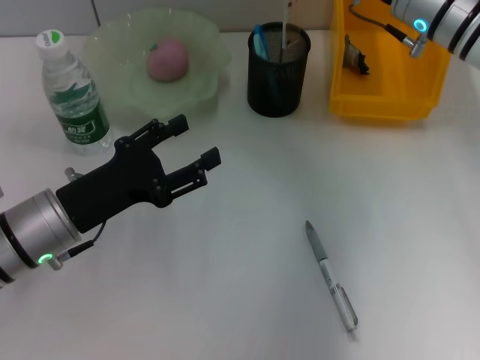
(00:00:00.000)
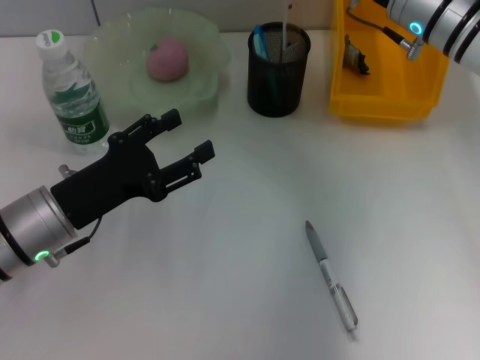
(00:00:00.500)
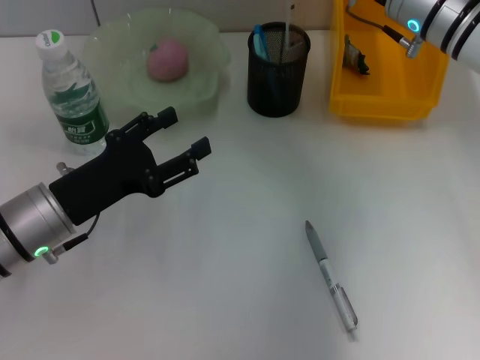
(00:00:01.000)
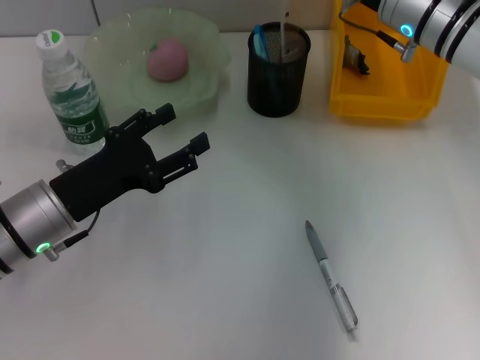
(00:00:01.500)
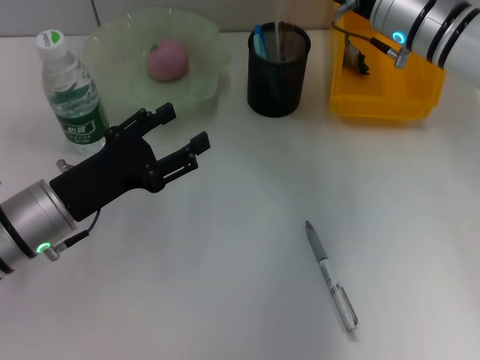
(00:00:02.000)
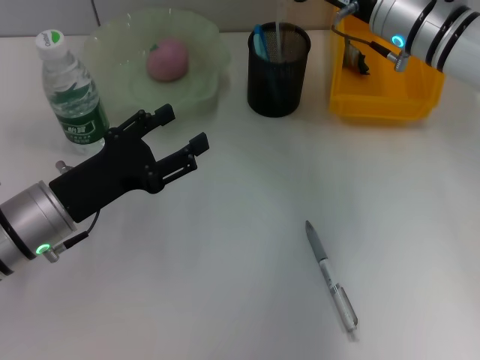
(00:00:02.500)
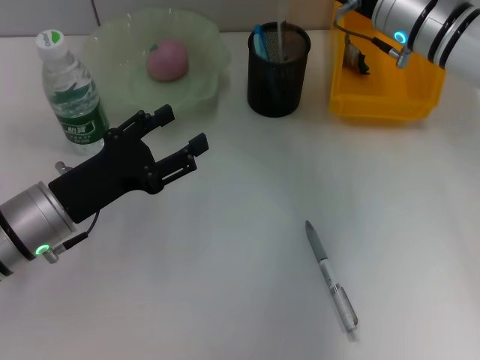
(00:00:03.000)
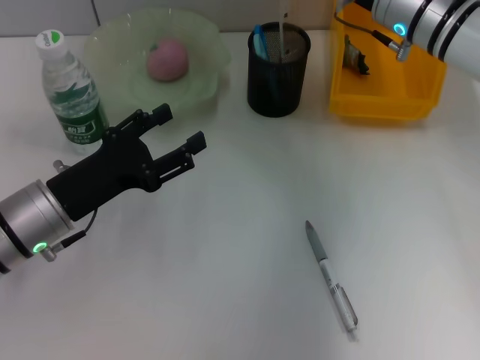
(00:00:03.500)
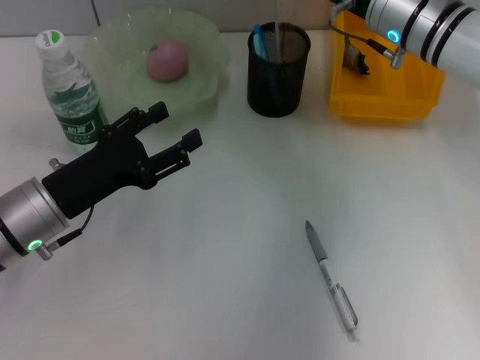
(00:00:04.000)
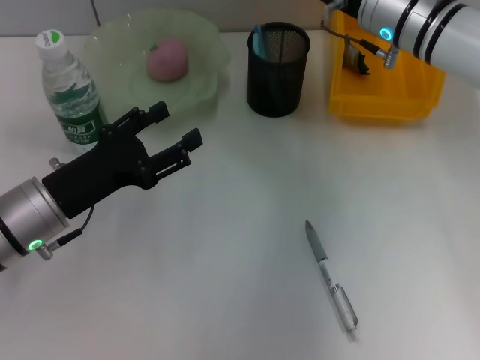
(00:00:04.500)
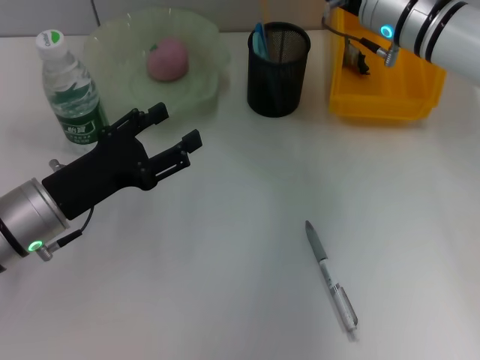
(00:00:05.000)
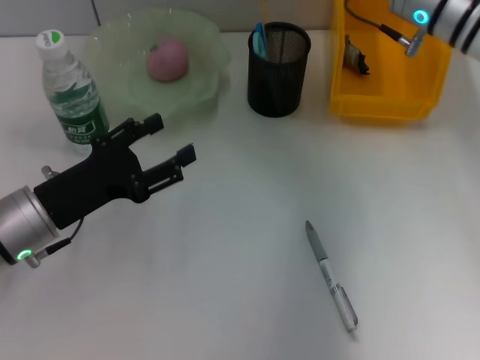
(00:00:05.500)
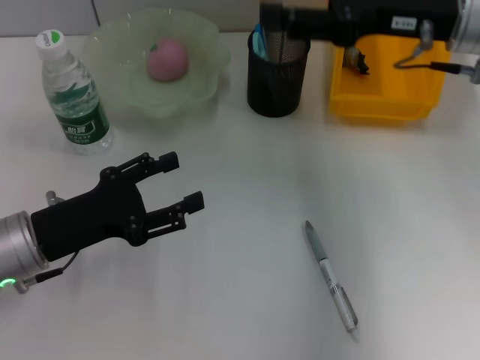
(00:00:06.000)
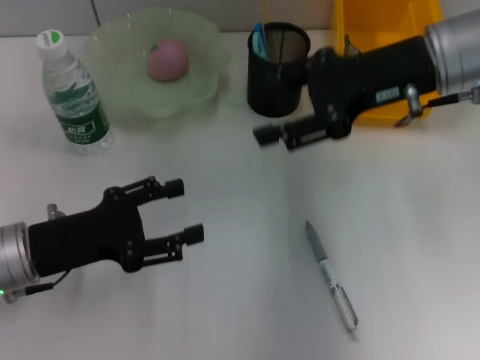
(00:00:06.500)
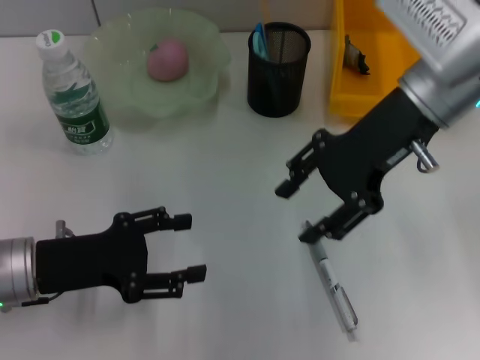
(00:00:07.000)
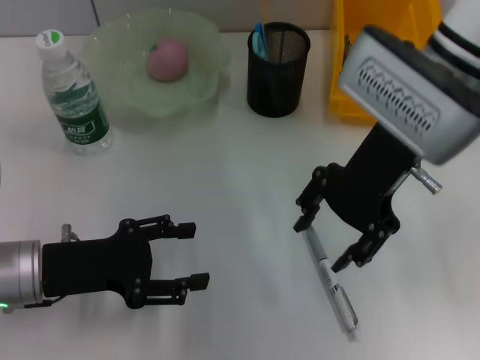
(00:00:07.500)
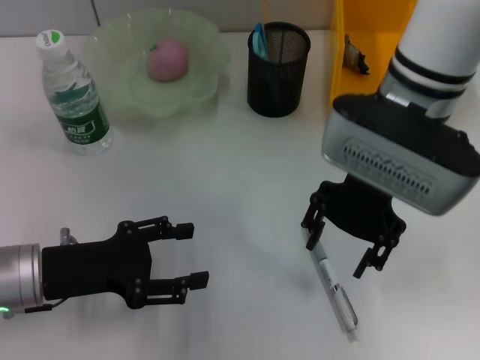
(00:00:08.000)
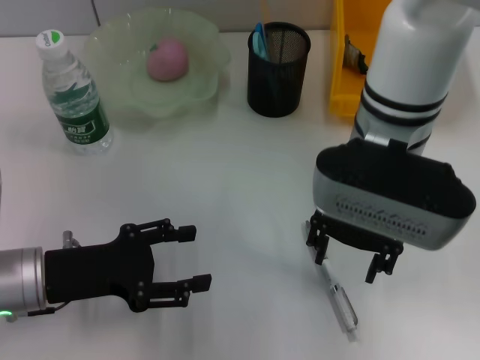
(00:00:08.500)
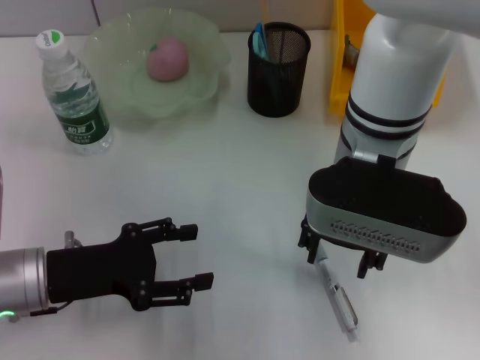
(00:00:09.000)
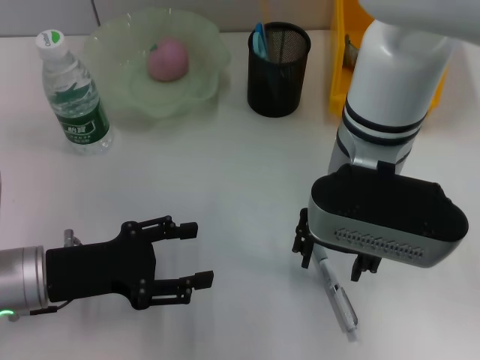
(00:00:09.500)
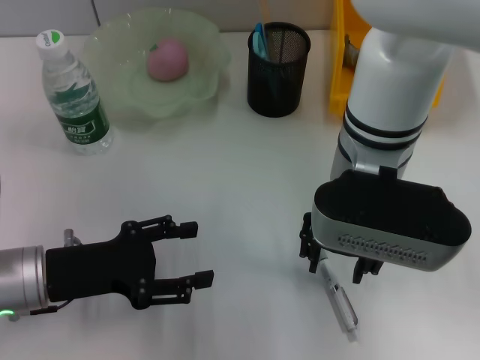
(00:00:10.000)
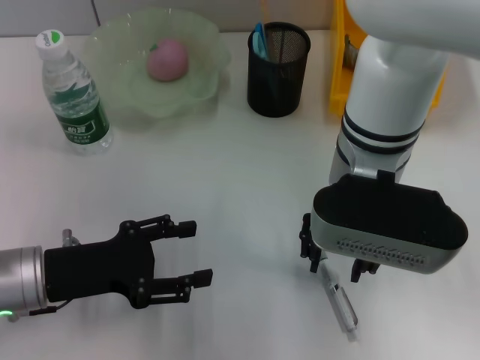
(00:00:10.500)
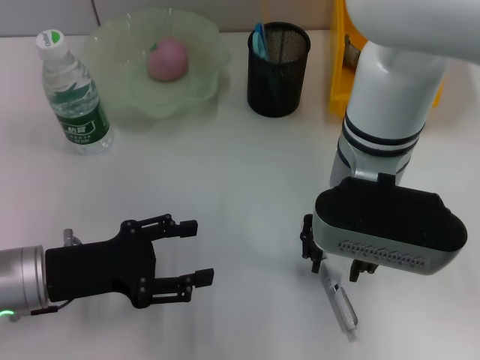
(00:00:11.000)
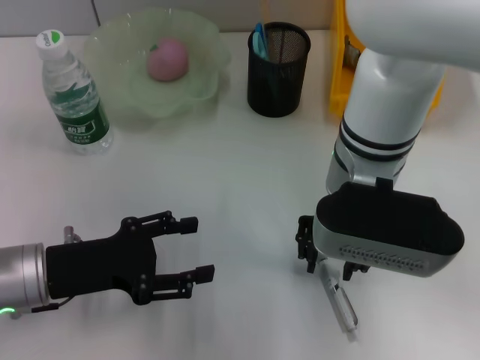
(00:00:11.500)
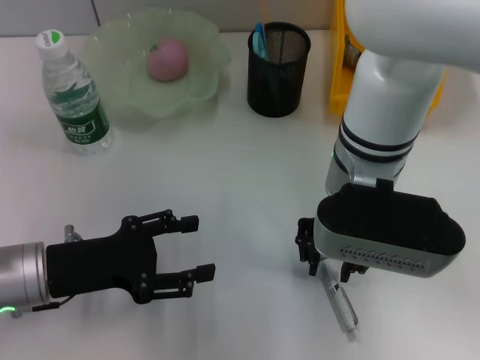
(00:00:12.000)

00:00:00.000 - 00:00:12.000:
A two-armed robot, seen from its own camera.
Step, 00:00:00.000 - 00:00:05.000: Place the ruler into the pen holder with the right hand.
00:00:00.000 - 00:00:02.000: The grippers move only a little.
00:00:02.000 - 00:00:04.000: Both grippers stay about where they are.
00:00:04.000 - 00:00:06.000: The right gripper goes roughly 10 cm upward and backward.
00:00:06.000 - 00:00:08.000: The right gripper is displaced to the left by approximately 10 cm.
00:00:10.000 - 00:00:12.000: The grippers stay close to where they were, moving slightly.

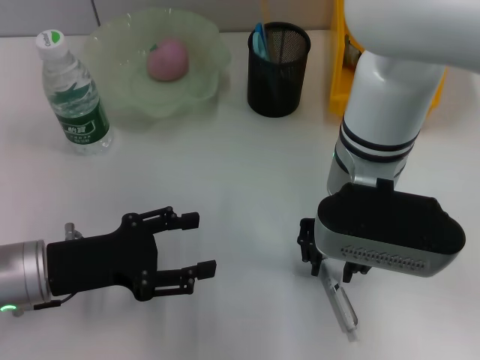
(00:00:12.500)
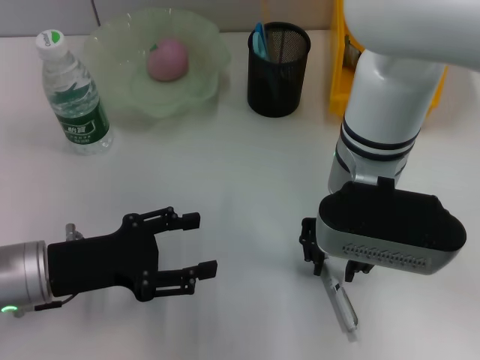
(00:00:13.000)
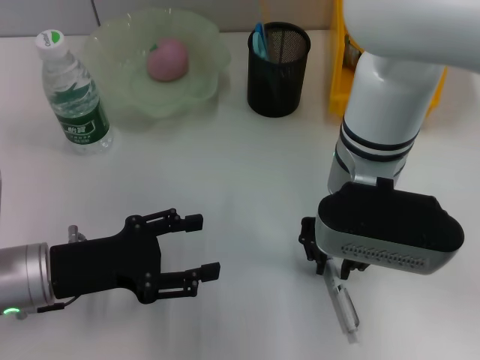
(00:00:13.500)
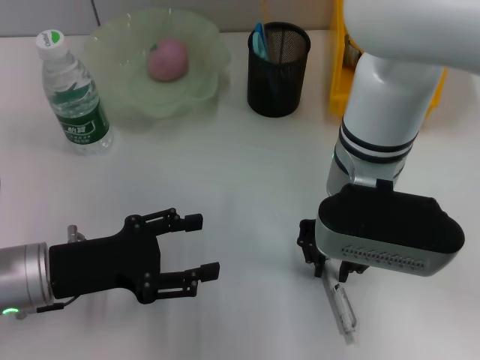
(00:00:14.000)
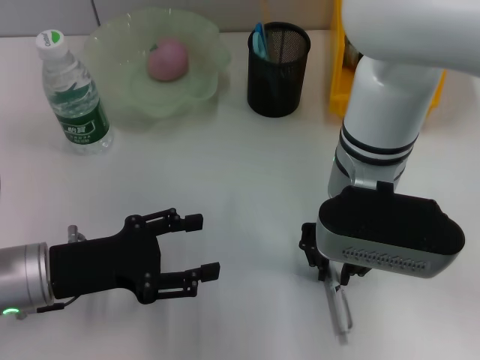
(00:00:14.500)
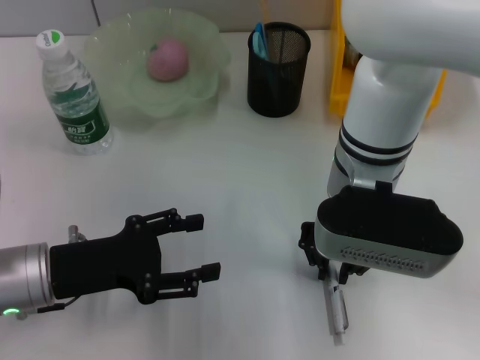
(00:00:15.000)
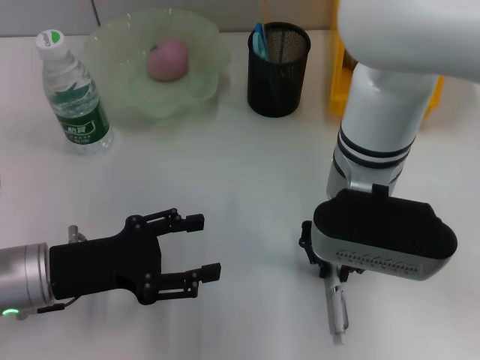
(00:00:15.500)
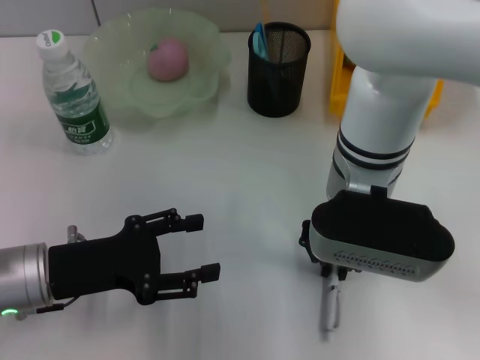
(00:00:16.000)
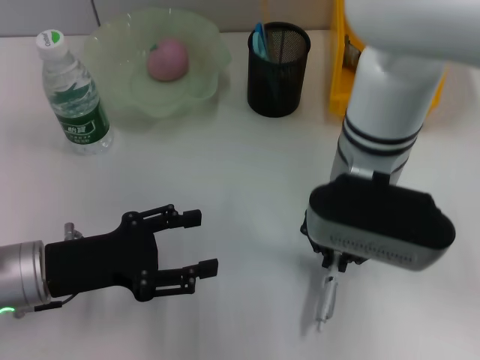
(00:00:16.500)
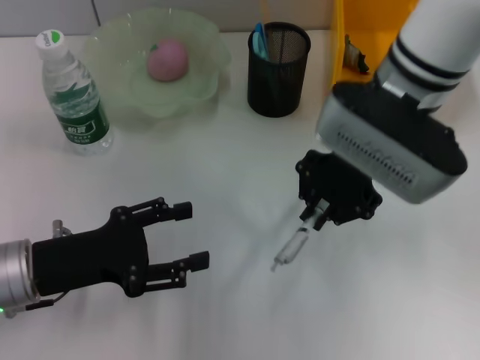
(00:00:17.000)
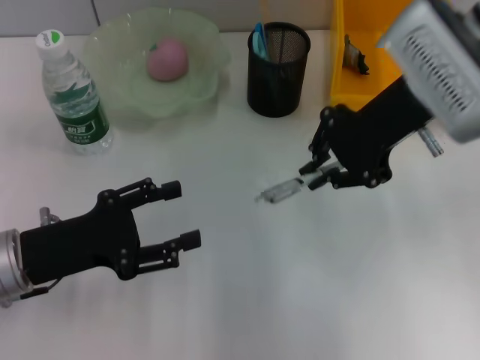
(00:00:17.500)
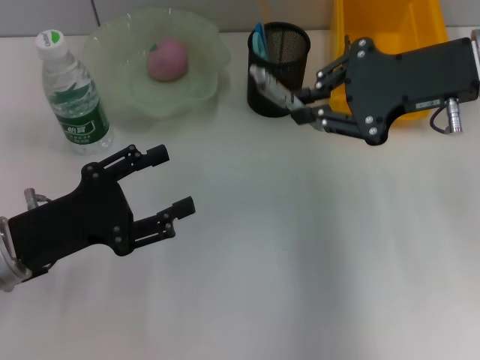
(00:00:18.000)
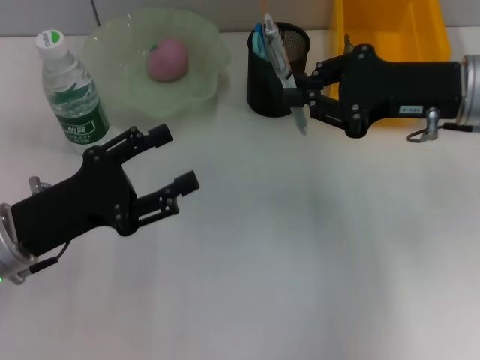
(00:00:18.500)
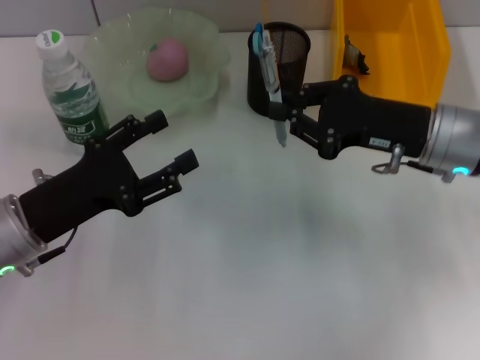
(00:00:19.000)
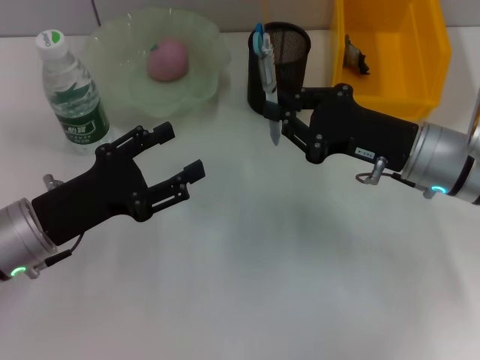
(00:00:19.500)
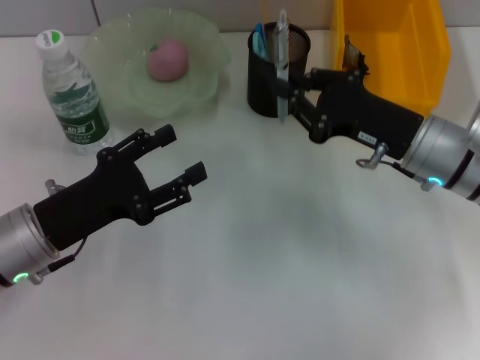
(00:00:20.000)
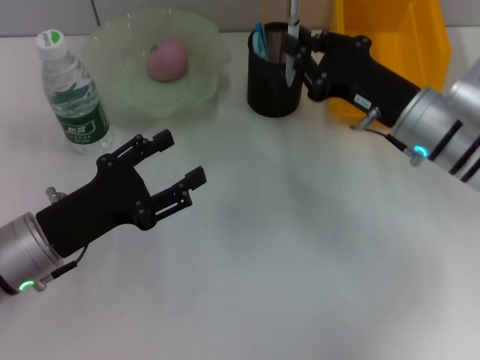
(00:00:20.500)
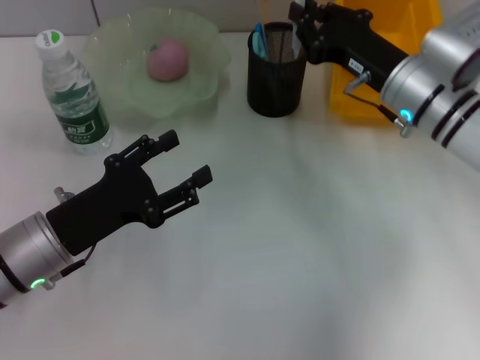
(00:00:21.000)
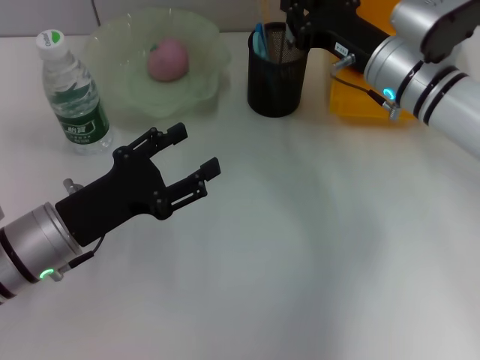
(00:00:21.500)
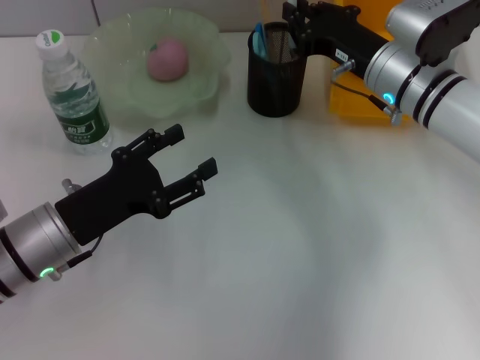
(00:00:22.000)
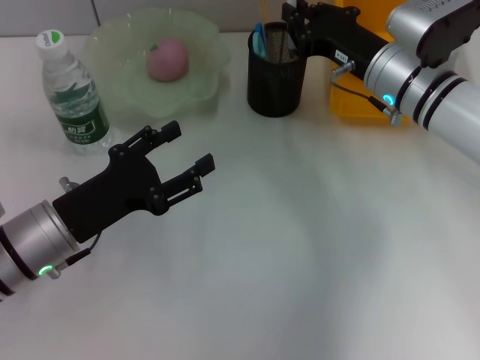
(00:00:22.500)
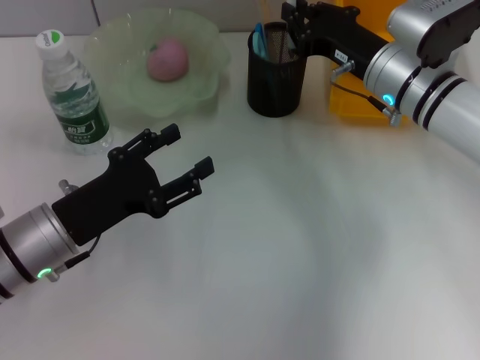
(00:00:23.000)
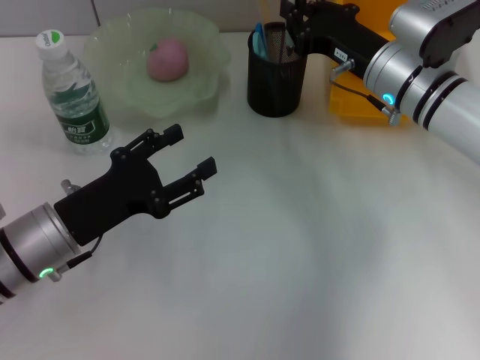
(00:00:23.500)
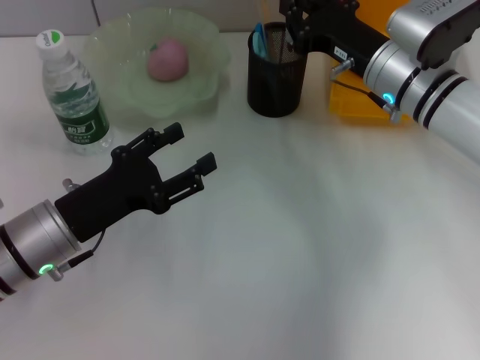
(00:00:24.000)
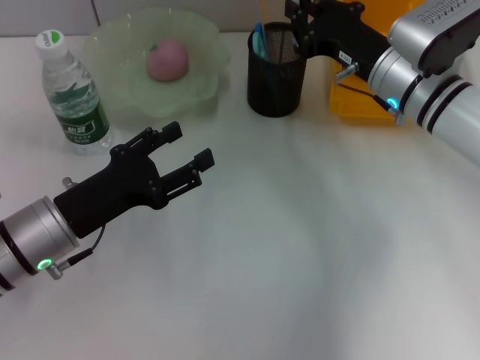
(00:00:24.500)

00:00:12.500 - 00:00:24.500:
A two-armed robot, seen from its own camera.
Step, 00:00:12.500 - 00:00:16.000: Grab the gray spring-action pen with the right hand.
00:00:12.500 - 00:00:14.500: Both grippers stay put.
00:00:14.500 - 00:00:16.500: The grippers make only small movements.
00:00:16.500 - 00:00:18.500: The right gripper goes some 15 cm to the right.
00:00:18.500 - 00:00:20.500: The right gripper shifts some 10 cm downward.
00:00:20.500 - 00:00:22.500: The right gripper is displaced forward by about 5 cm.
00:00:22.500 - 00:00:24.500: The grippers make only small movements.

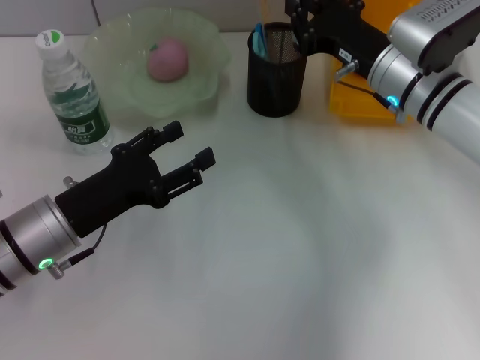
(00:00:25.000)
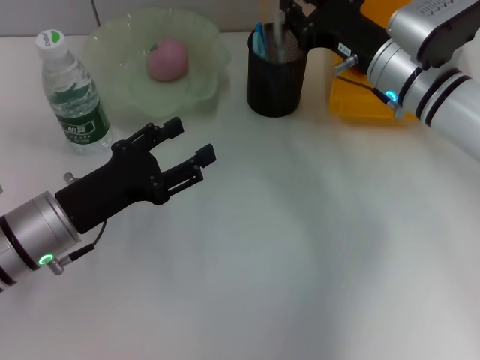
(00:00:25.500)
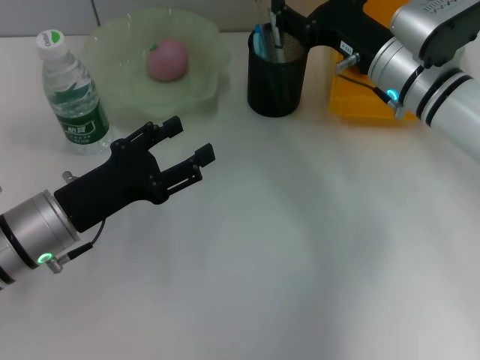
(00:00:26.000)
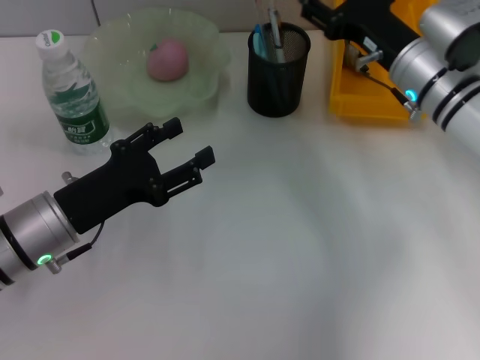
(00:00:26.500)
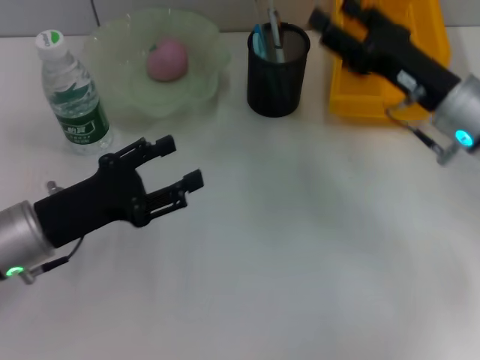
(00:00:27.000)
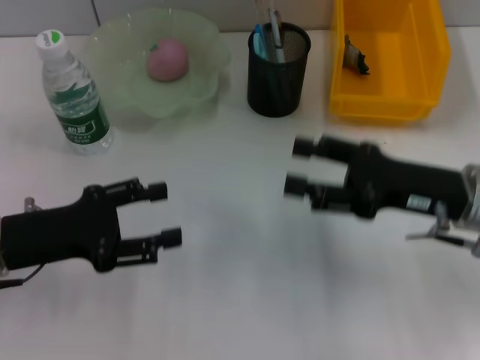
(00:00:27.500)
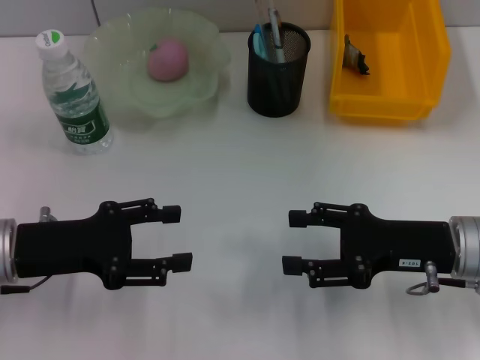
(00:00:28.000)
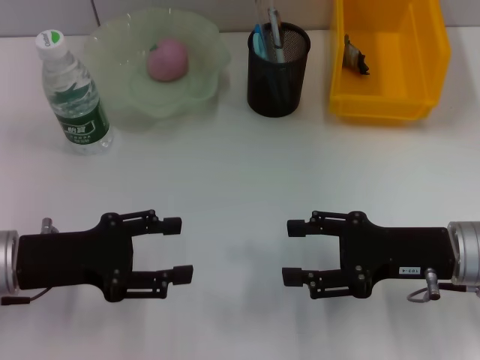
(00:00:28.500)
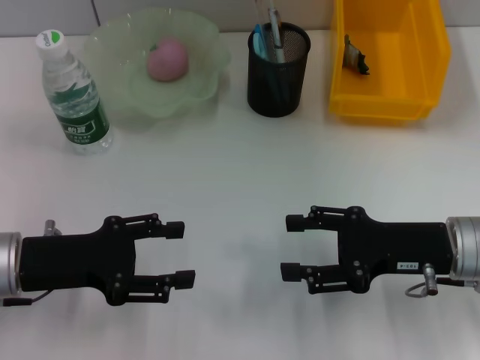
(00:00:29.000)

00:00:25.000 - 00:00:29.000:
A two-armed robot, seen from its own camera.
00:00:25.000 - 00:00:27.000: The right gripper travels backward and to the right by roughly 10 cm, and opens.
00:00:27.000 - 00:00:29.000: The right gripper goes roughly 10 cm backward.
